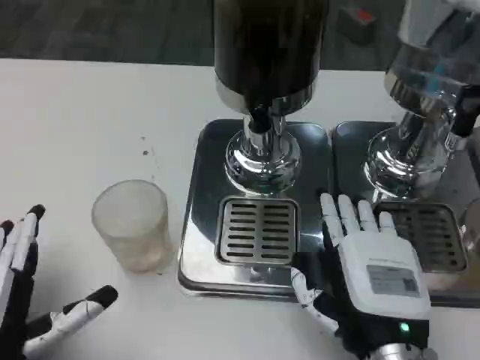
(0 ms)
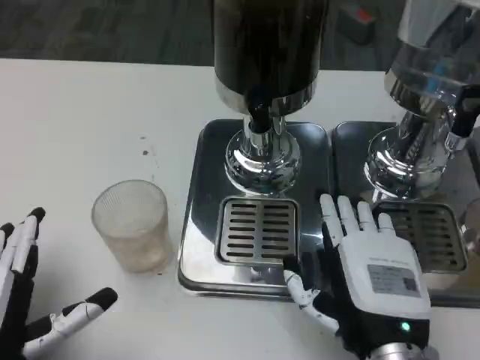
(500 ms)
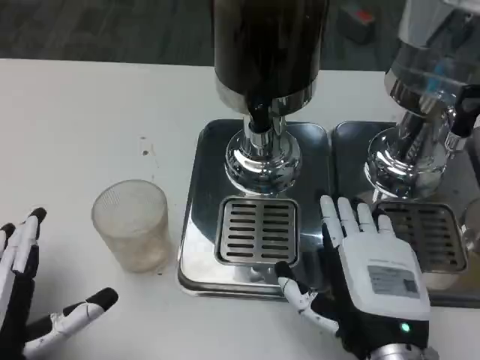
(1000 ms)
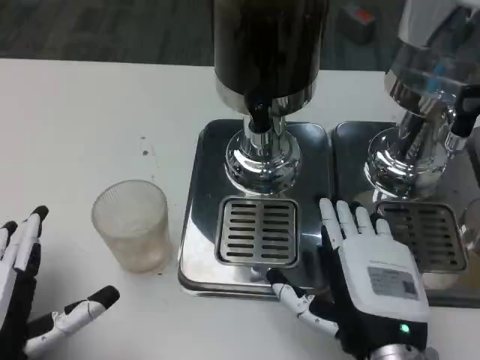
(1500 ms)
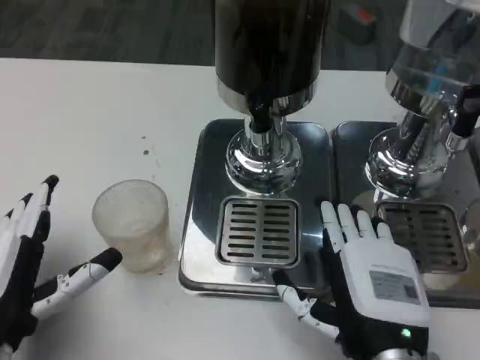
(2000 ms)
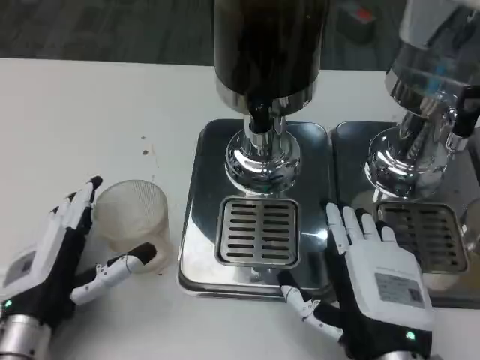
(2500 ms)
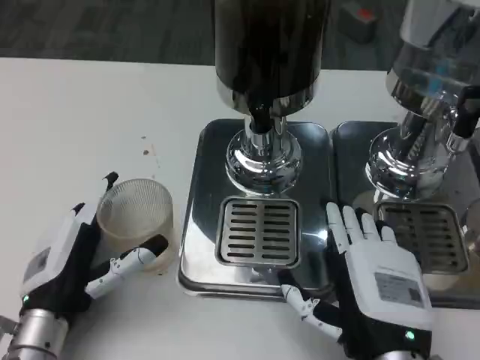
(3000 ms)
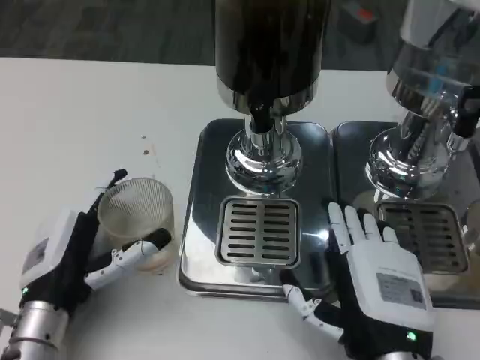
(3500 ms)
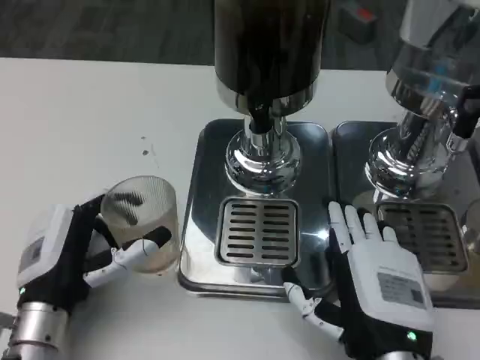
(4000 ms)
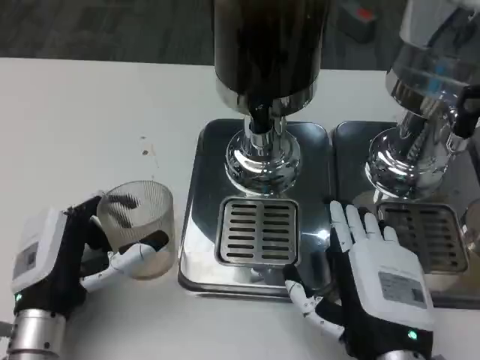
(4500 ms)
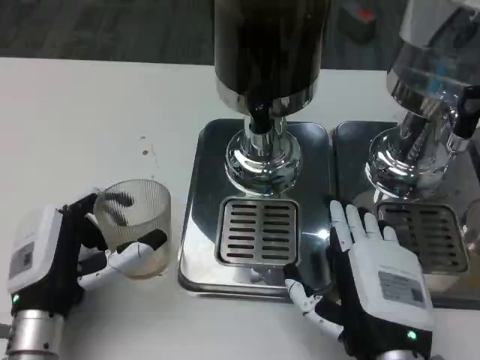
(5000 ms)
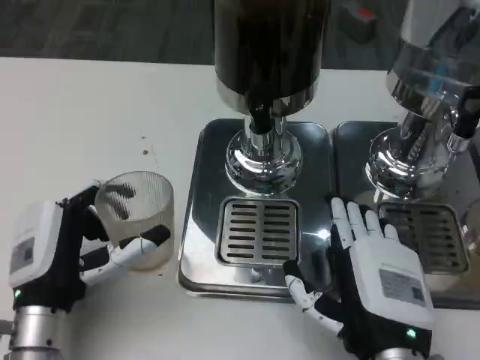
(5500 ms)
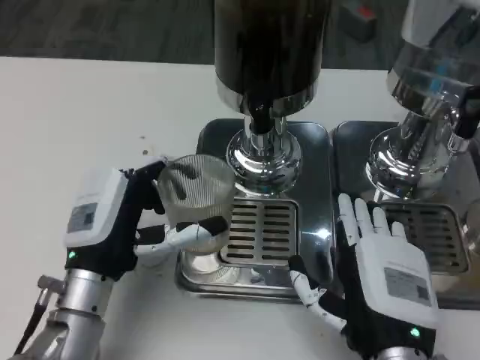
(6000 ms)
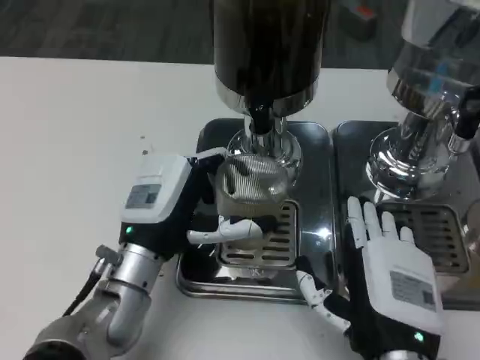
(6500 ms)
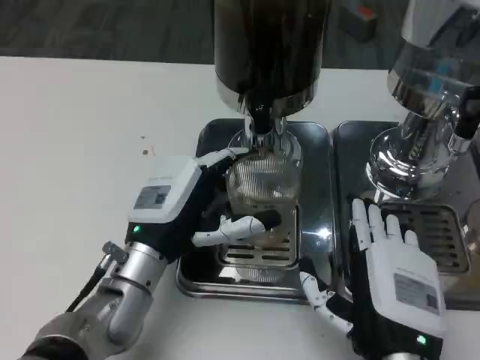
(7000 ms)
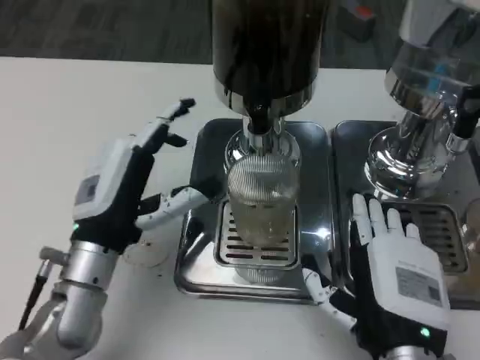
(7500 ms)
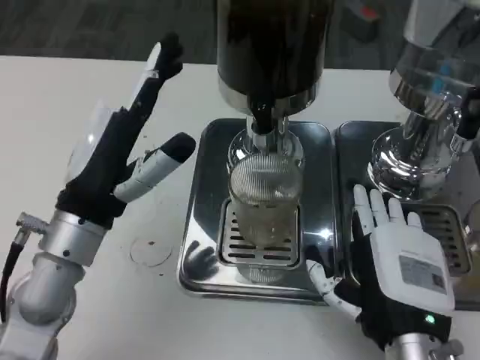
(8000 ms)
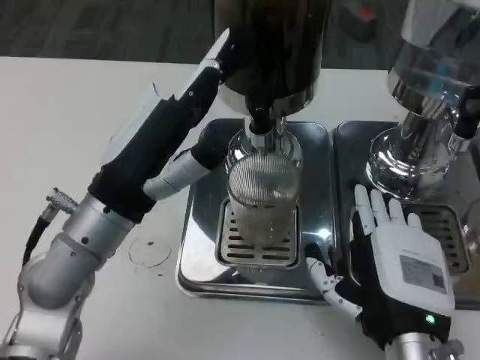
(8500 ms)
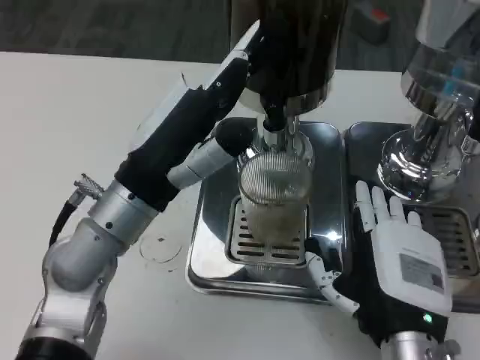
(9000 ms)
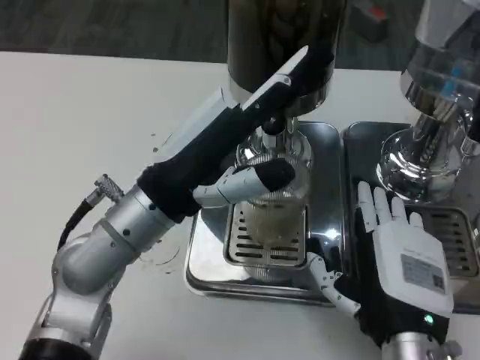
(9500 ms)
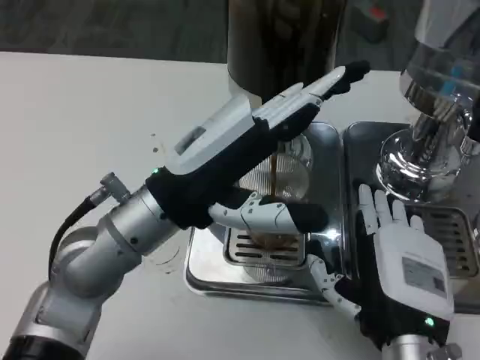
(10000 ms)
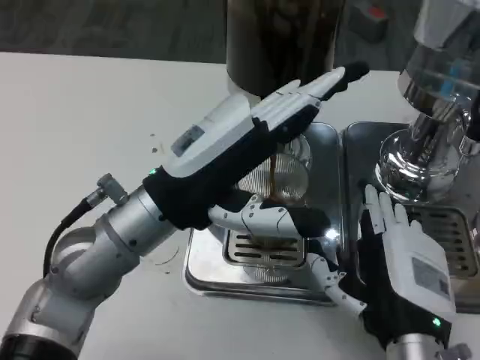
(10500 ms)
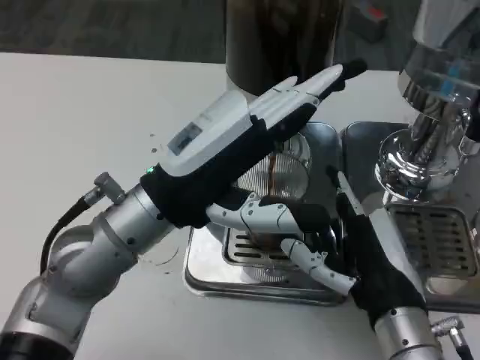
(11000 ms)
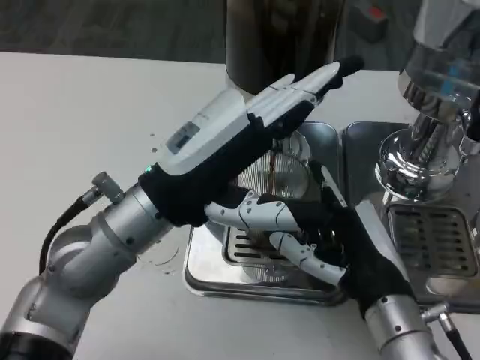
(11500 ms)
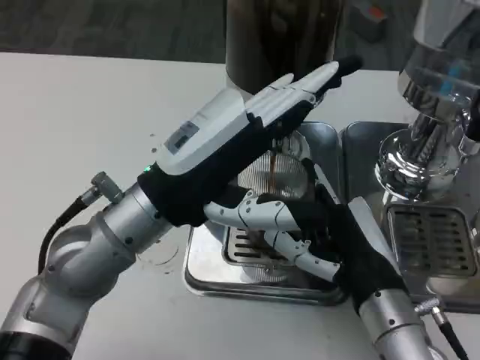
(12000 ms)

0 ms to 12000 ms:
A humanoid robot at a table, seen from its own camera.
Task of the whole recording: Grasp the cup under the faucet to collect the drink, then remove the cup.
0 ms to 2000 ms: The hands stay close to where they were, moving slightly.
2000 ms to 4000 ms: The left hand shifts by about 5 cm.
4000 ms to 6000 ms: The left hand shifts by about 5 cm.
6000 ms to 8000 ms: The left hand heads upward, covering roughly 5 cm.
8000 ms to 10000 ms: The left hand heads to the right, covering about 5 cm.

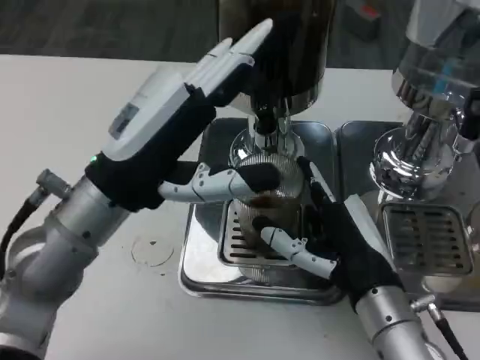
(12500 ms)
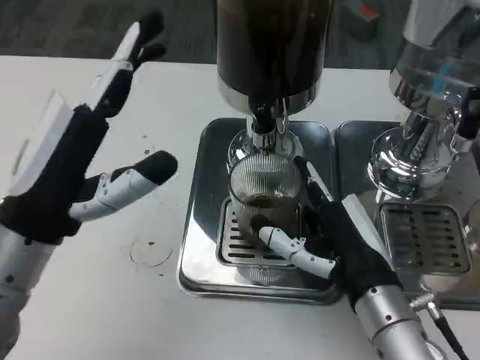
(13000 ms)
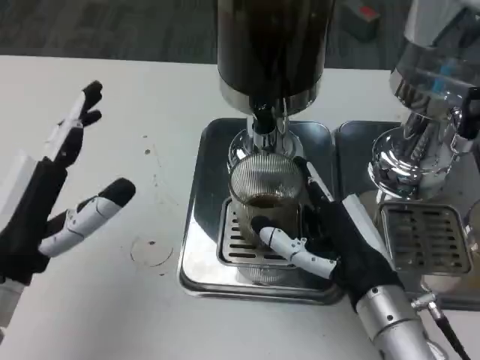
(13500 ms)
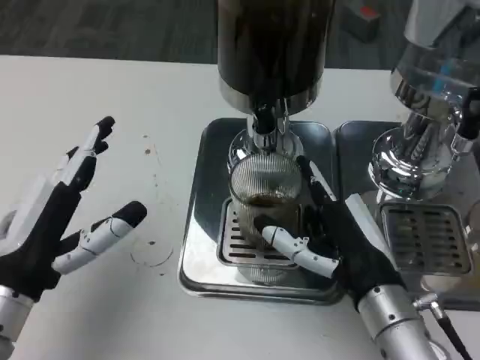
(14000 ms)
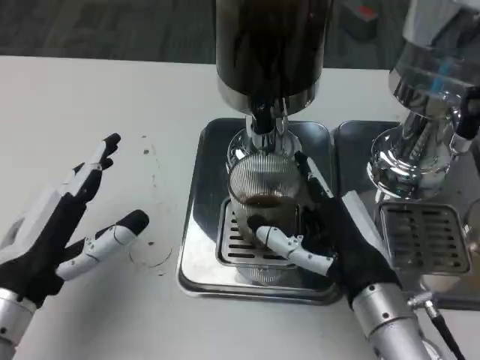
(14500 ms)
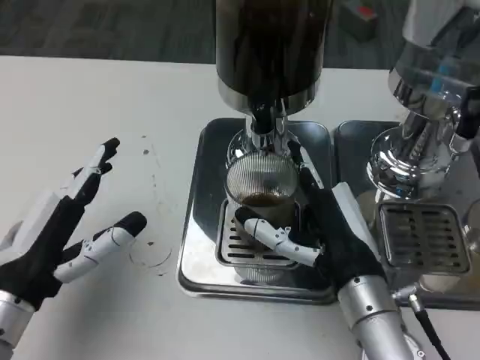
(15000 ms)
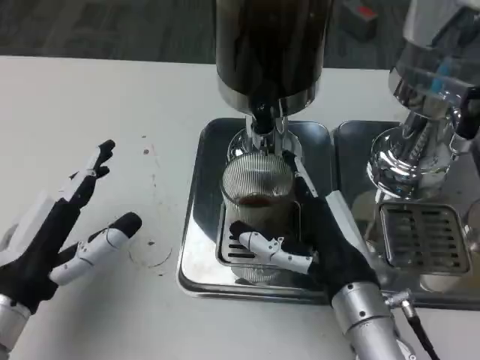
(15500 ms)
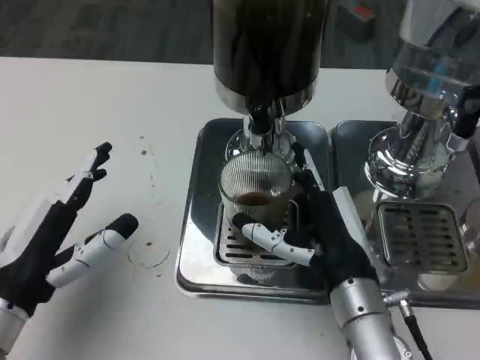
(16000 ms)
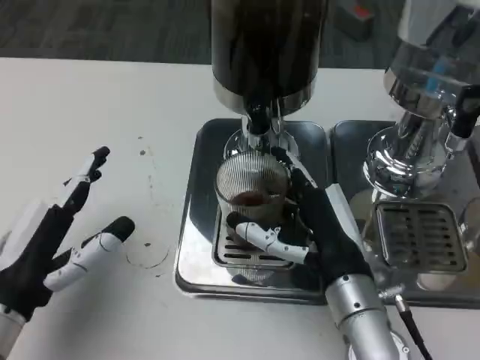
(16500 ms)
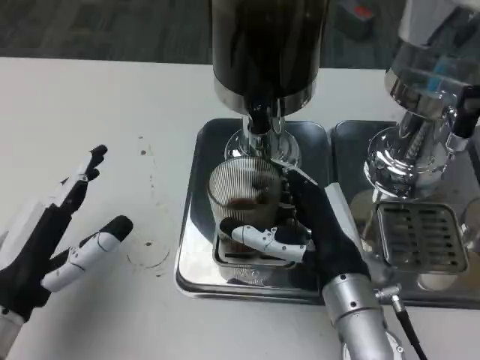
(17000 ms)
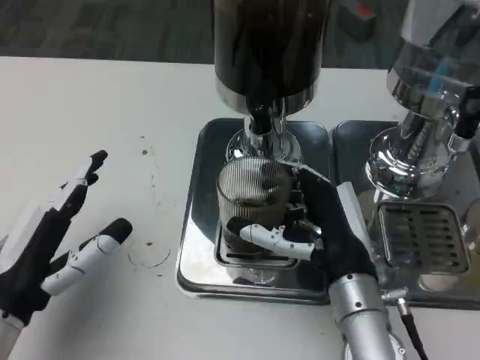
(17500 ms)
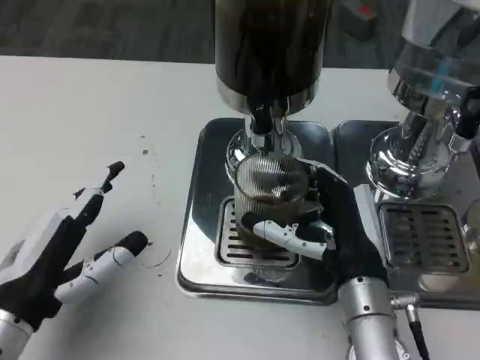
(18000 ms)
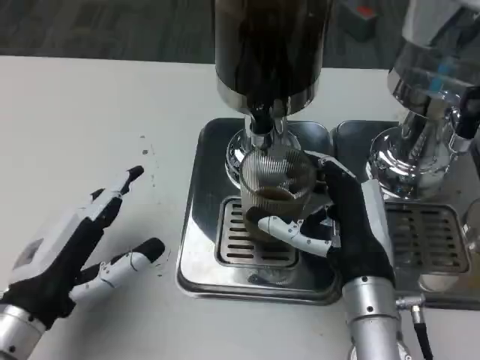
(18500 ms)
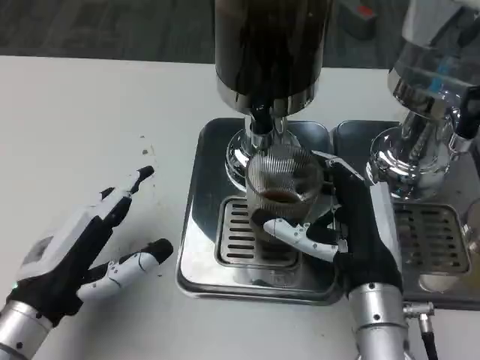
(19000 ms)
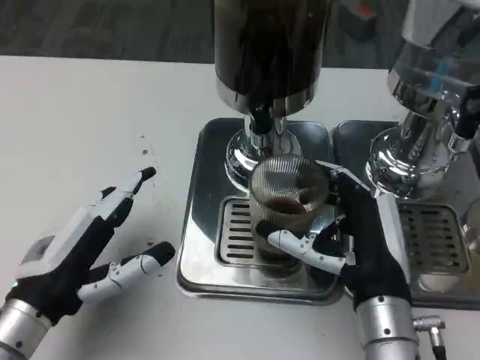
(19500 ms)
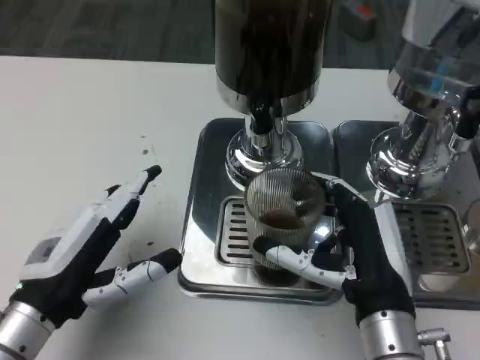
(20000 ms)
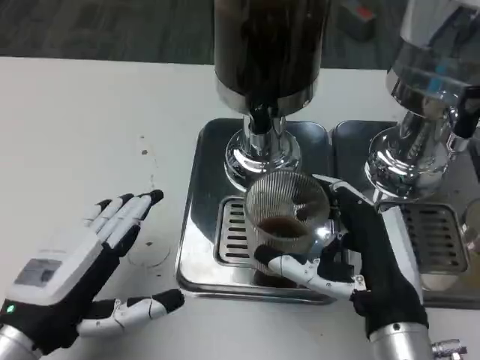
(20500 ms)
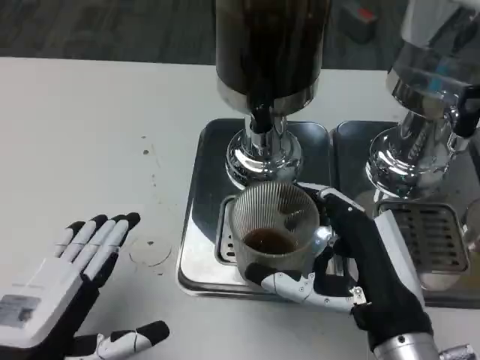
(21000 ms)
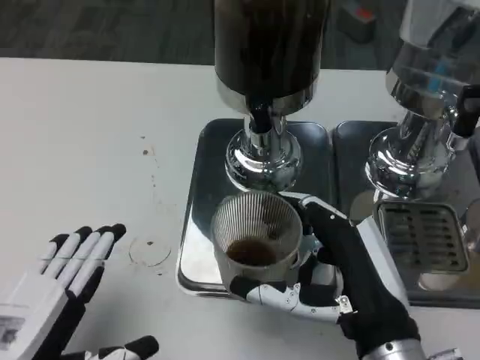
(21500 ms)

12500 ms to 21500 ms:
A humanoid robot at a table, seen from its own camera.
Task of the whole recording: Grasp the cup under the faucet to collect the drink, then remove the cup.
12500 ms to 14500 ms: The left hand travels downward, to the left and backward by some 15 cm.
19500 ms to 21500 ms: The right hand shifts by approximately 5 cm. The left hand goes about 10 cm backward.

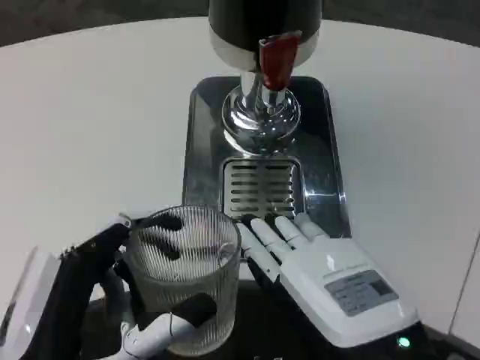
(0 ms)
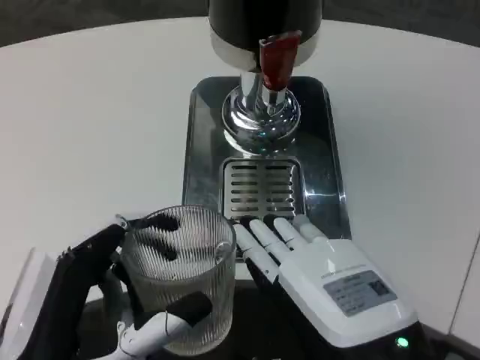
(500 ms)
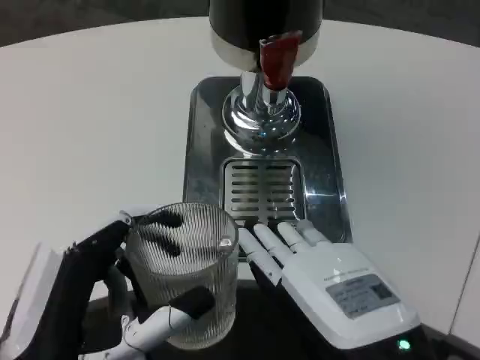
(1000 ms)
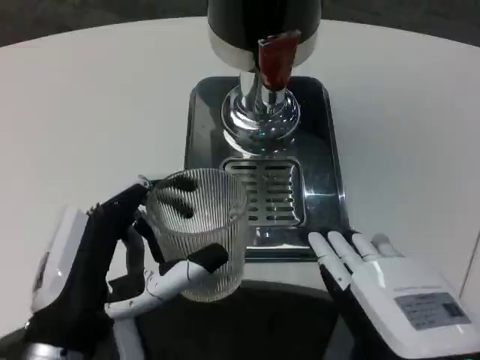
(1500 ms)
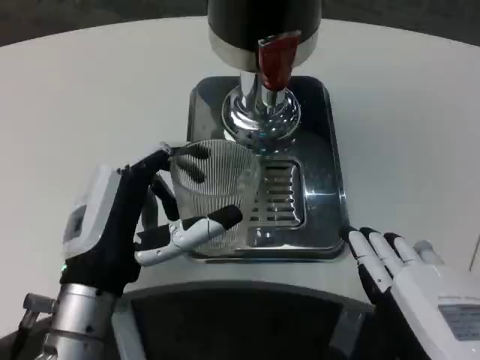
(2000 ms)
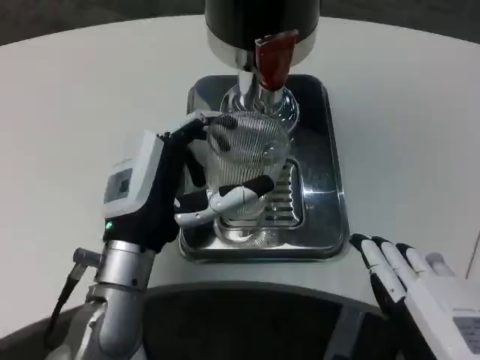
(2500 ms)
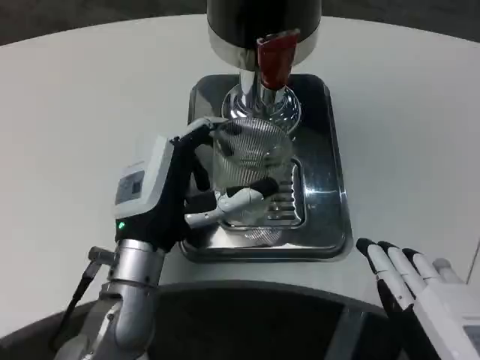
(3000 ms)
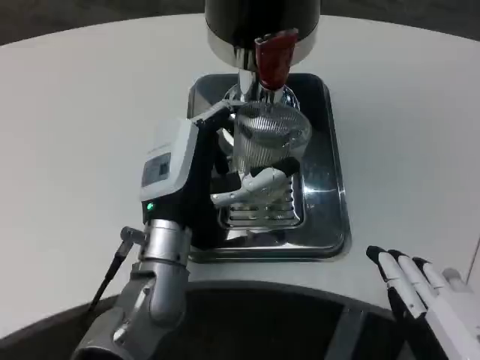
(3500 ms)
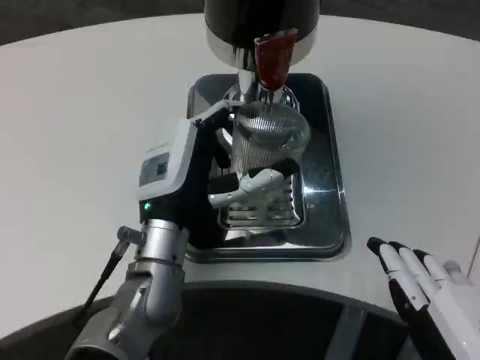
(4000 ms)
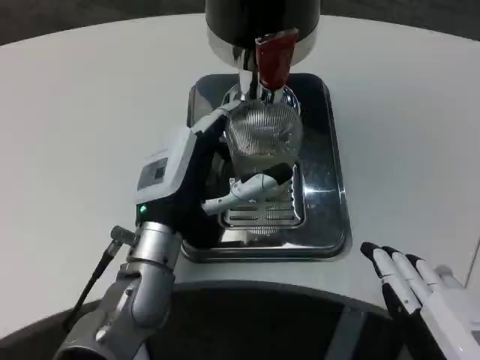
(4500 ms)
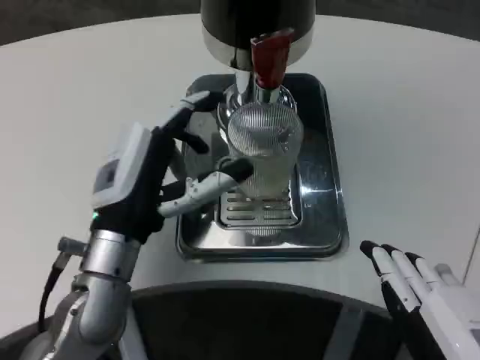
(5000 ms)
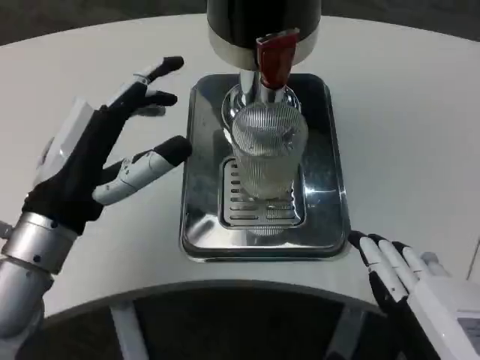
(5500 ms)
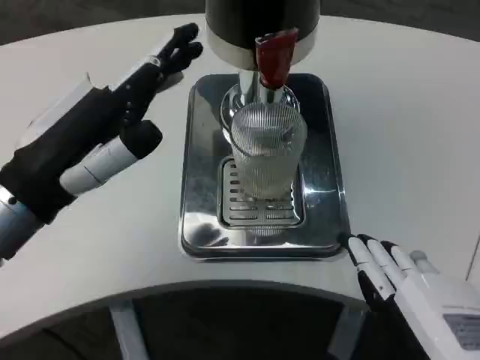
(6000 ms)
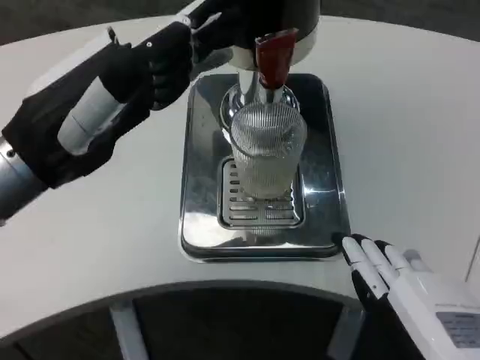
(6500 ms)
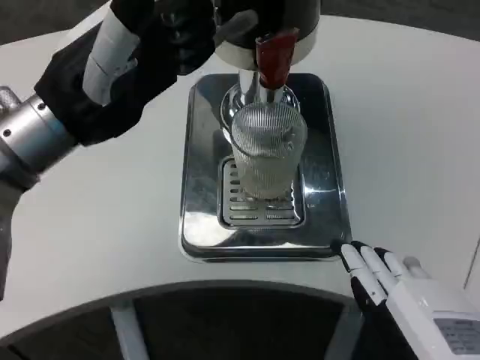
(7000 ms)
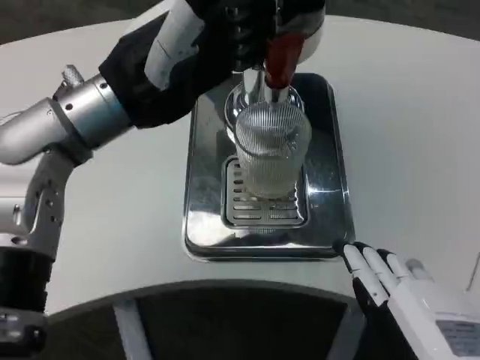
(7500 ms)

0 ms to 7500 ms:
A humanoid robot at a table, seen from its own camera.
Task of the whole recording: Grasp the cup under the faucet to collect the drink, then remove the cup.
0 ms to 2000 ms: The left hand heads forward, covering about 10 cm.
2000 ms to 4000 ms: The left hand travels forward and to the right by about 10 cm.
4000 ms to 5500 ms: The left hand moves to the left, upward and backward, some 15 cm.
5500 ms to 7500 ms: The left hand travels upward and forward by about 15 cm.
